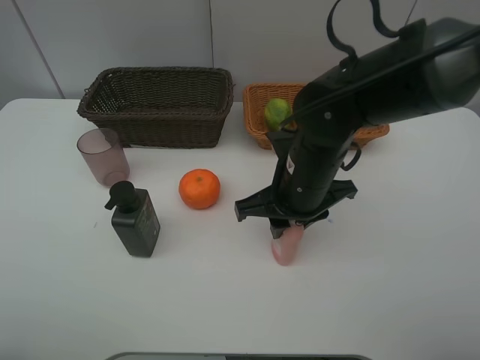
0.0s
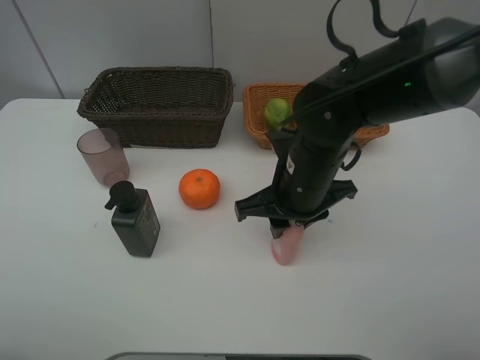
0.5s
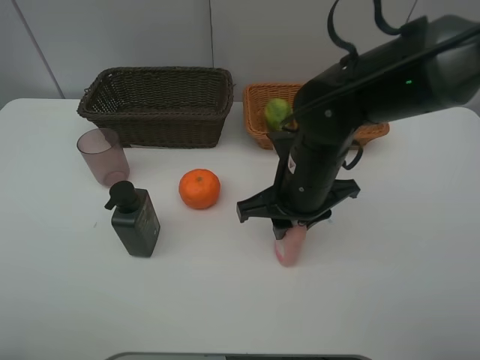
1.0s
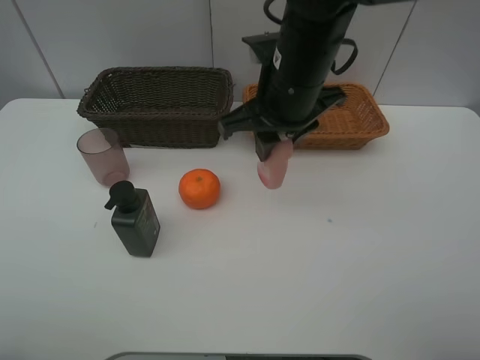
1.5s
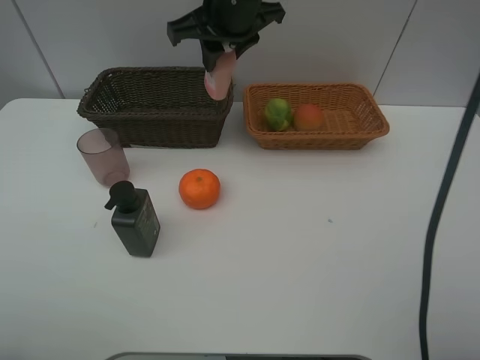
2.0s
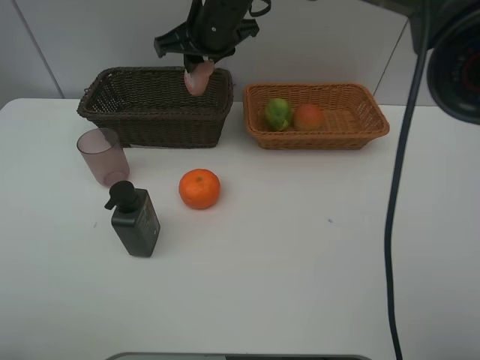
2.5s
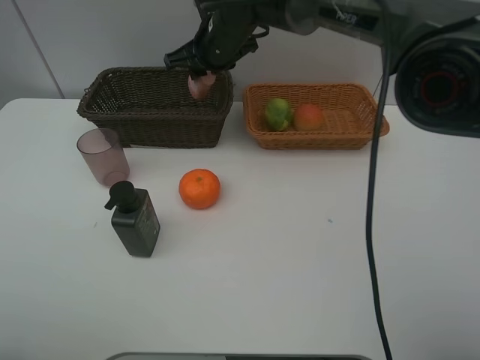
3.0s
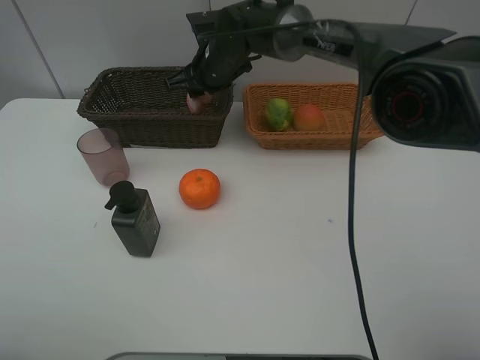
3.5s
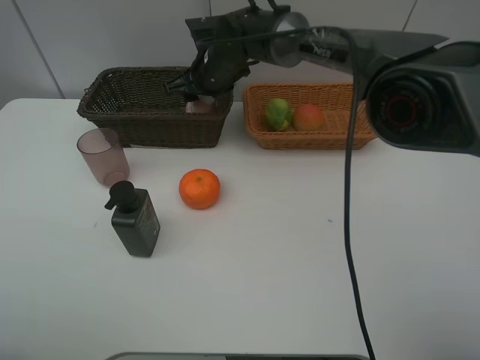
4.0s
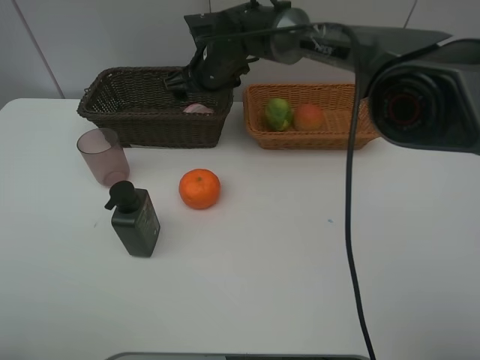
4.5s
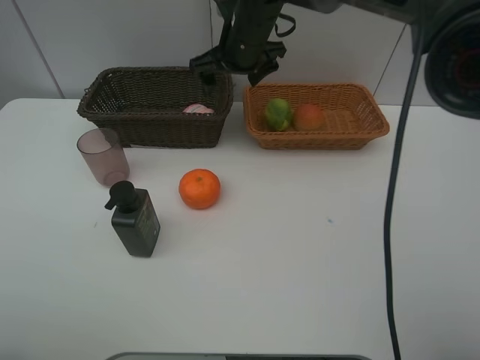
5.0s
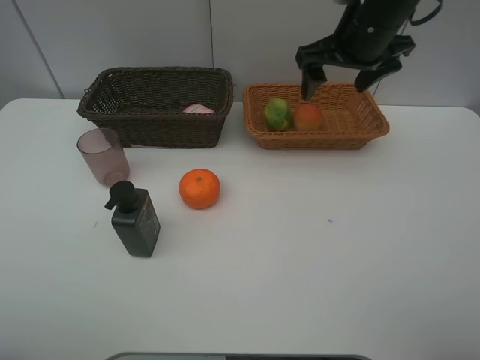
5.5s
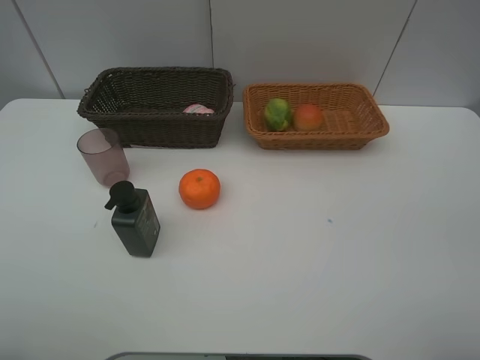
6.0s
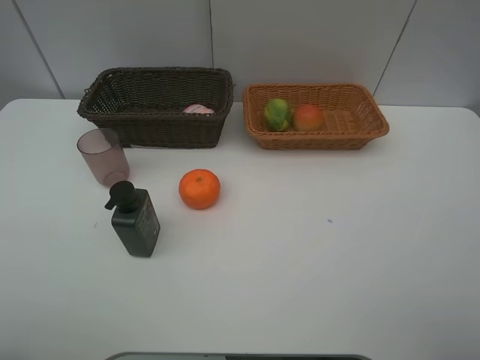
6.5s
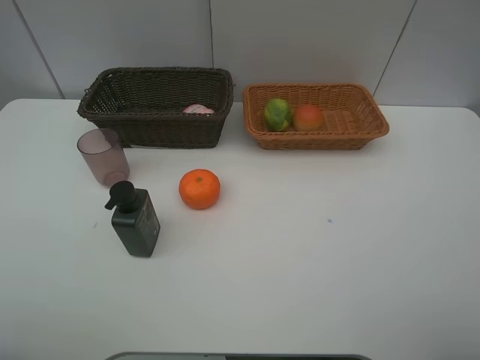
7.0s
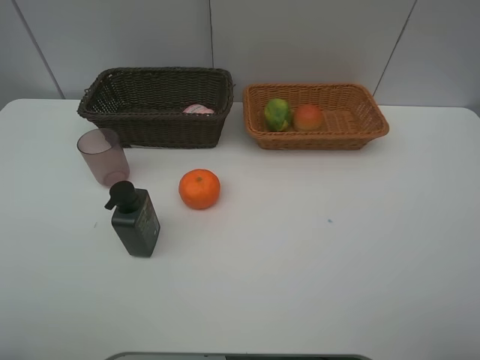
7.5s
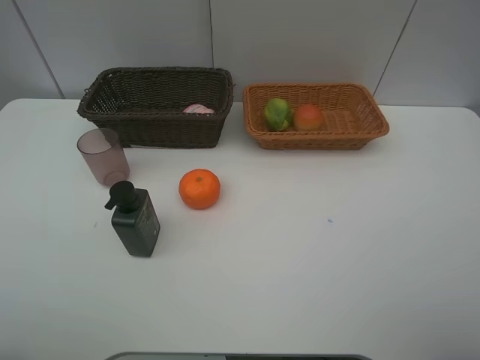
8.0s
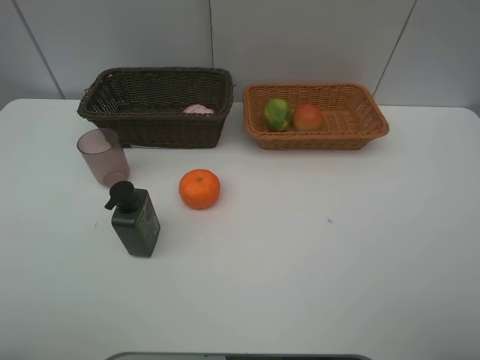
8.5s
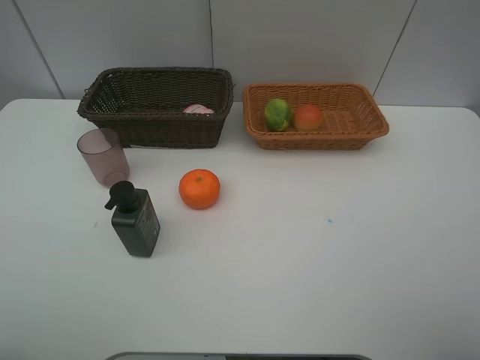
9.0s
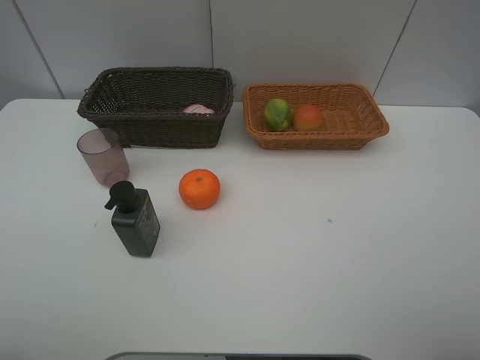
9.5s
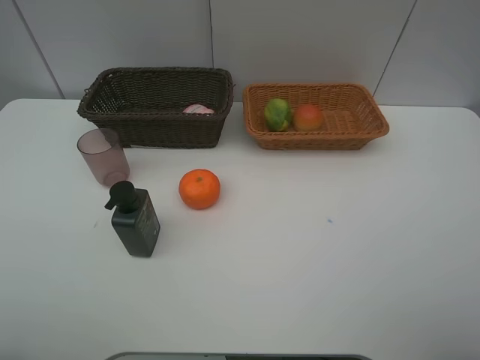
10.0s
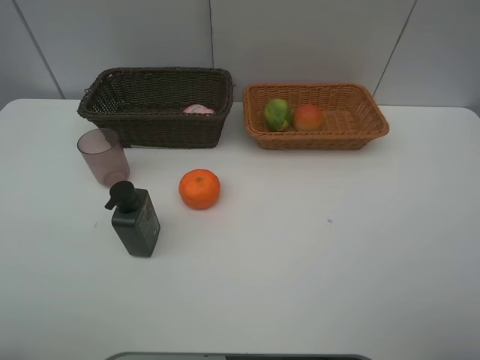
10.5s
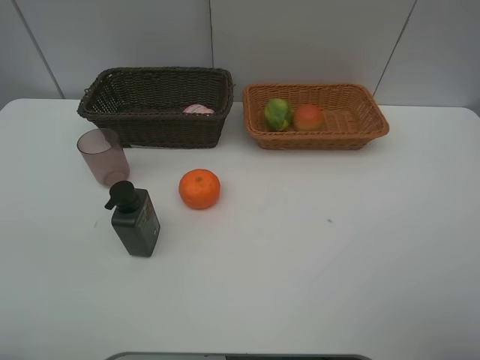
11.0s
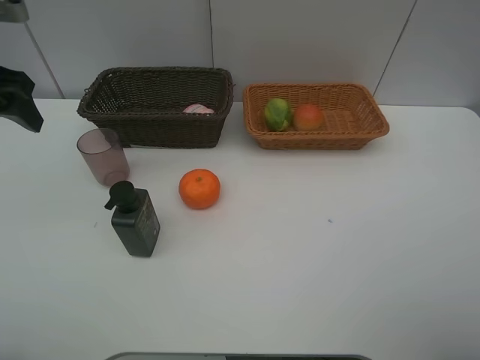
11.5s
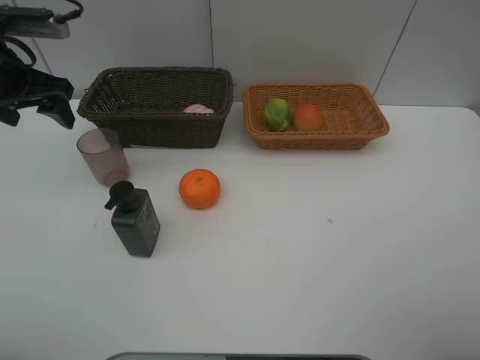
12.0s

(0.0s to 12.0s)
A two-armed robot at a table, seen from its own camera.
Task of the whole recording: place multiple objects separately in different baskets.
0.0s - 2.0s: The right gripper goes some 25 cm forward, upward and to the left.
2.0s - 4.0s: The right gripper heads downward and forward, covering roughly 15 cm, and opens.
4.0s - 6.0s: The right gripper travels to the right, backward and upward by roughly 50 cm, and opens up.
8.0s - 10.0s: Both grippers stay put.
10.0s - 12.0s: The left gripper shifts approximately 30 cm forward.

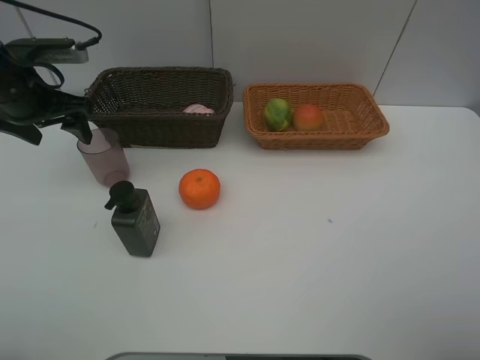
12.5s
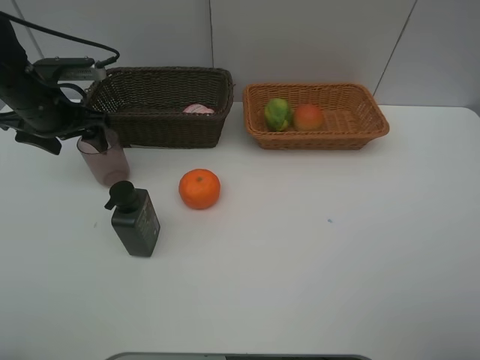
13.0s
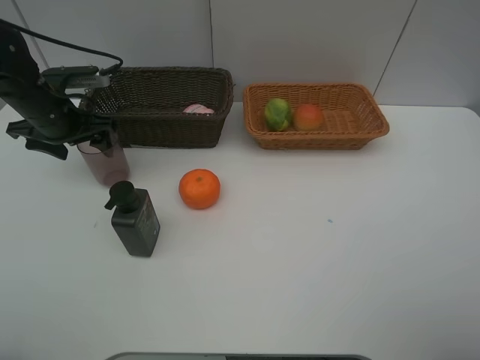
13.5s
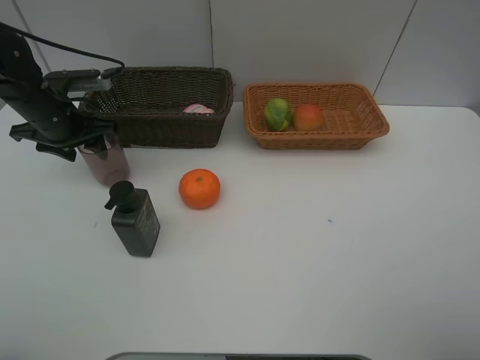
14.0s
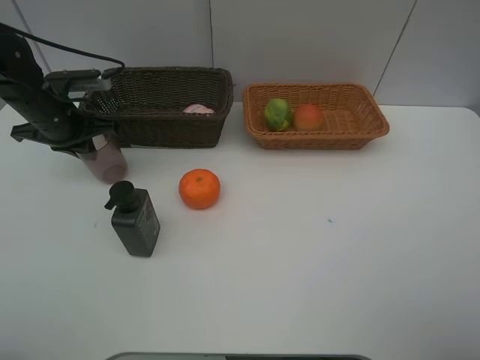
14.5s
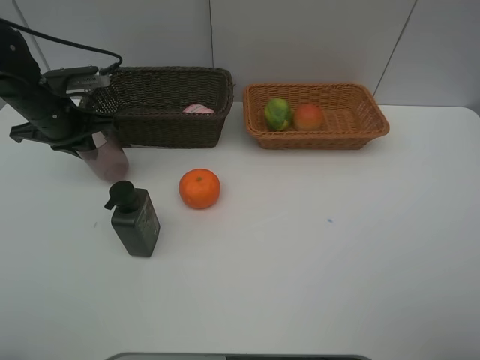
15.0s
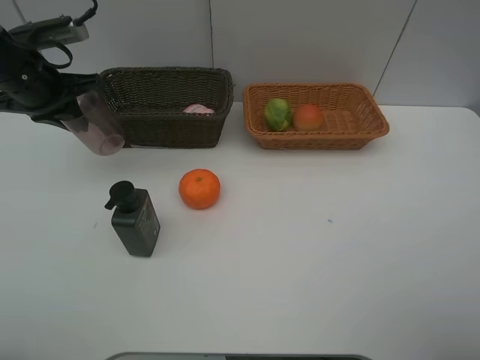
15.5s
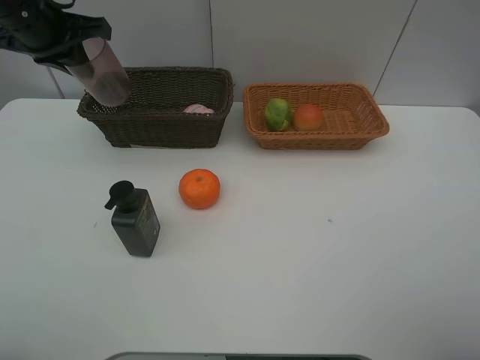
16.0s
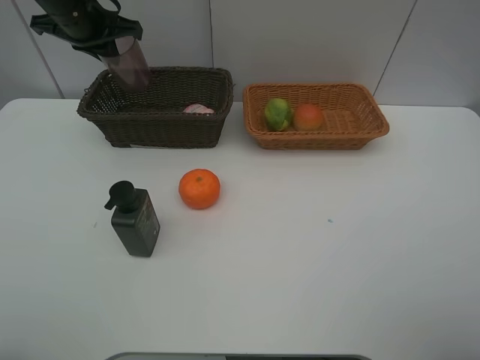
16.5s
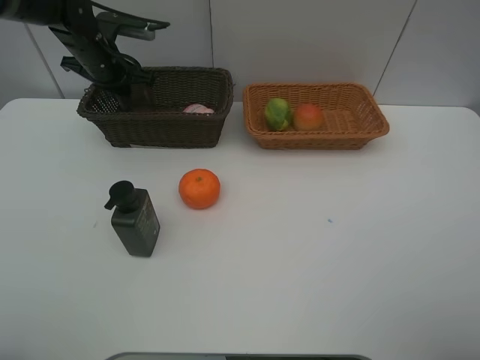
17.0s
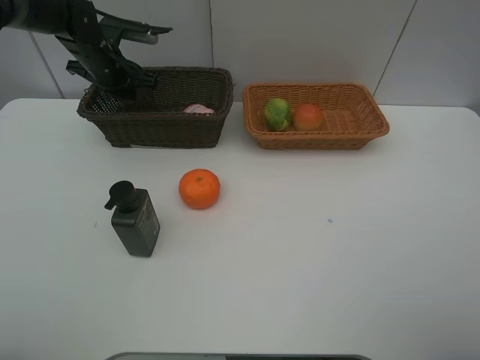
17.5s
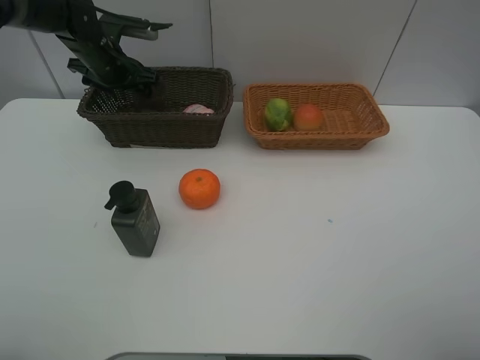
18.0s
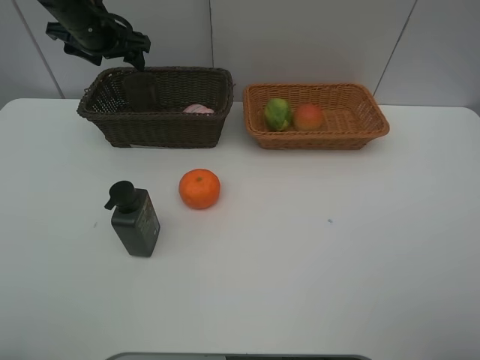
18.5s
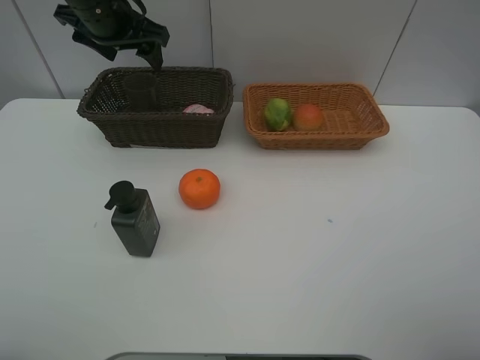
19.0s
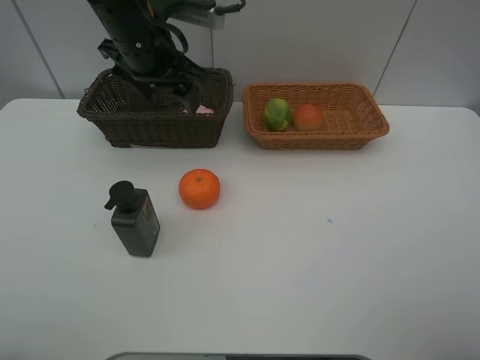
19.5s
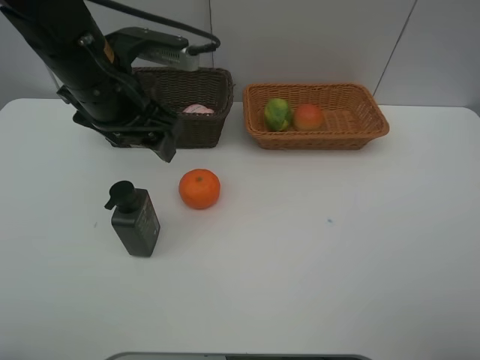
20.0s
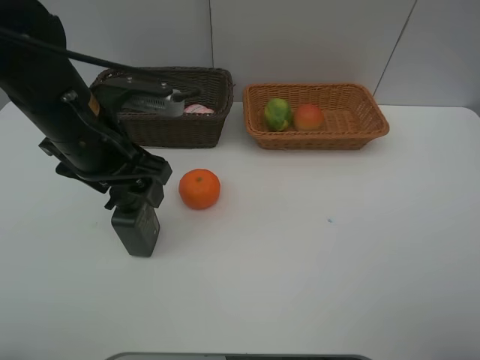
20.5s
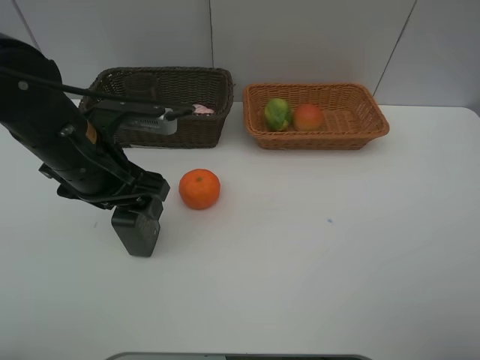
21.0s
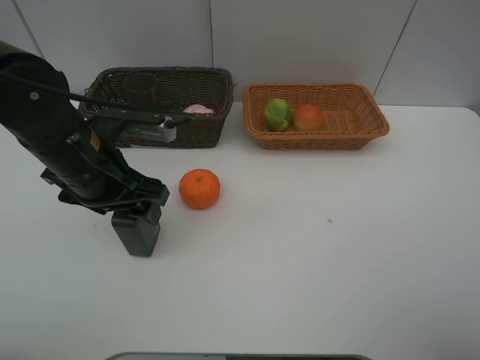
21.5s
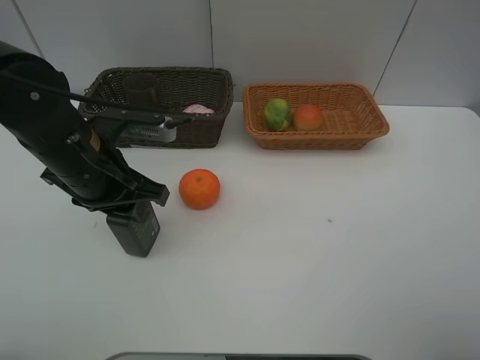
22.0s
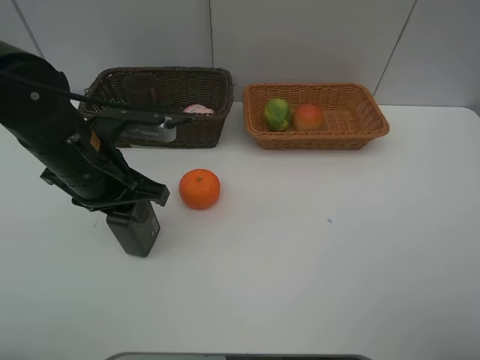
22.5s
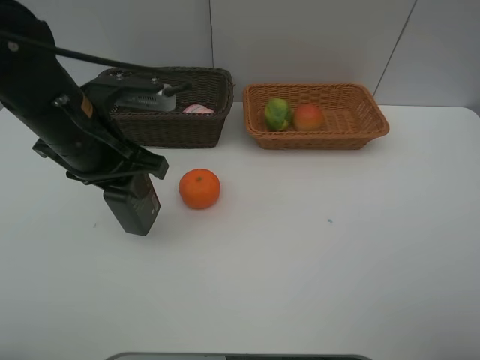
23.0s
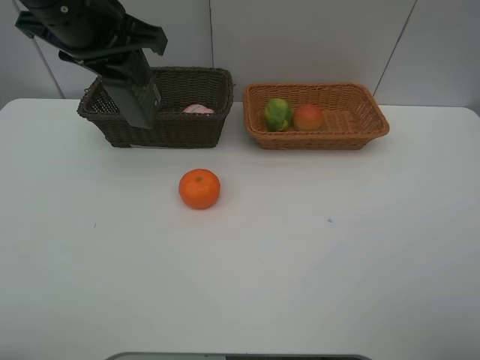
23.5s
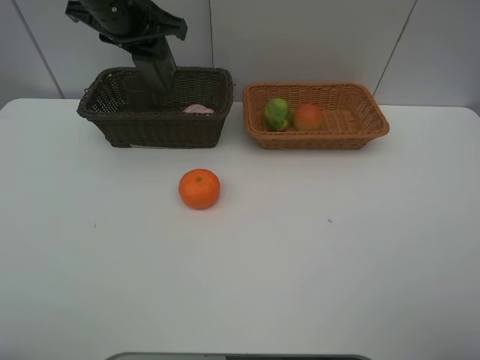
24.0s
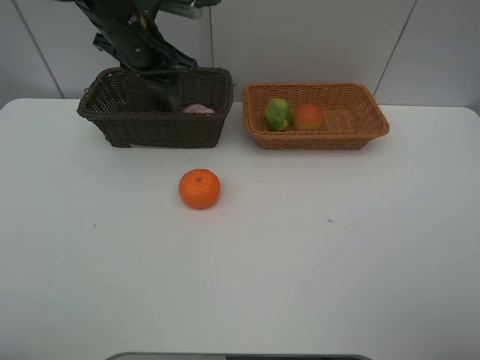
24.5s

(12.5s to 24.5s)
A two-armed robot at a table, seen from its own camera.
Task of the whole recording: place multiple objects separately in different baskets.
12.5s - 14.5s: The left gripper heads downward, covering about 5 cm, and closes.
14.5s - 16.5s: The left gripper goes roughly 15 cm upward and forward.
16.5s - 18.5s: The left gripper goes downward and returns, approximately 10 cm each way, and opens up.
18.5s - 20.5s: The left gripper heads backward, covering some 20 cm.
20.5s - 22.5s: The left gripper closes.
22.5s - 24.5s: The left gripper moves forward, roughly 20 cm.

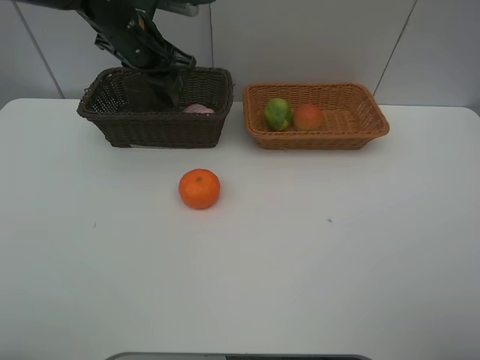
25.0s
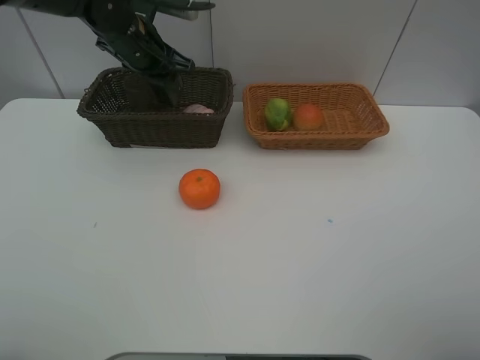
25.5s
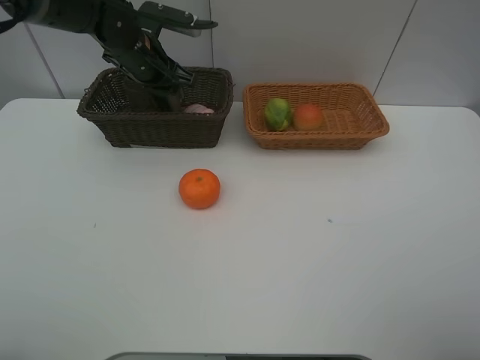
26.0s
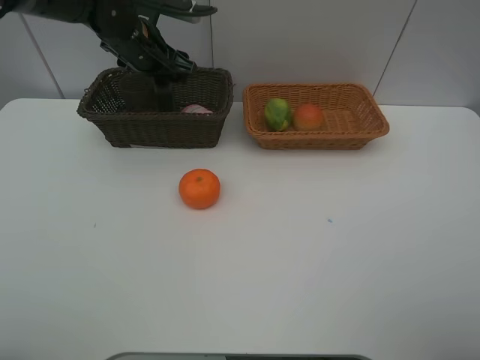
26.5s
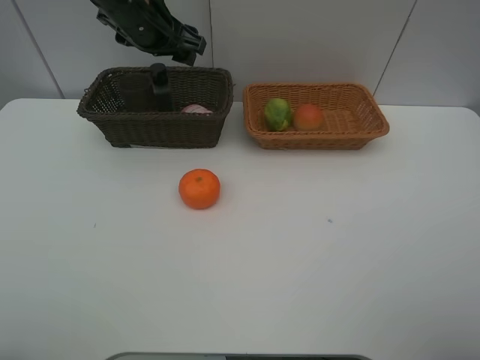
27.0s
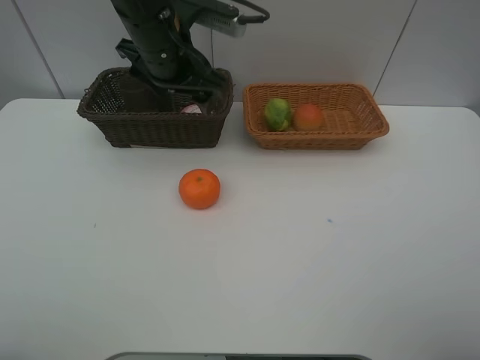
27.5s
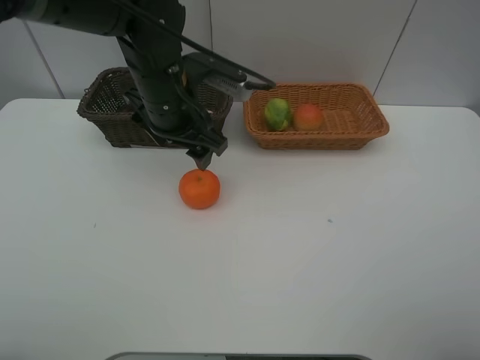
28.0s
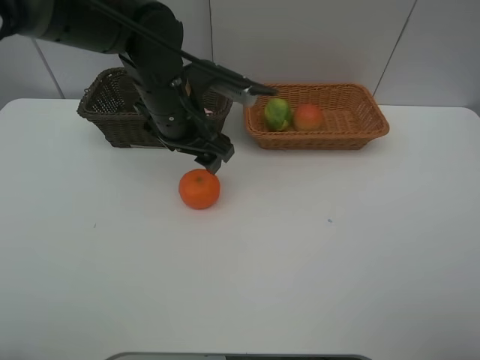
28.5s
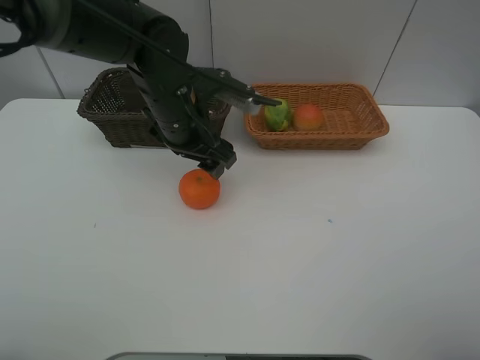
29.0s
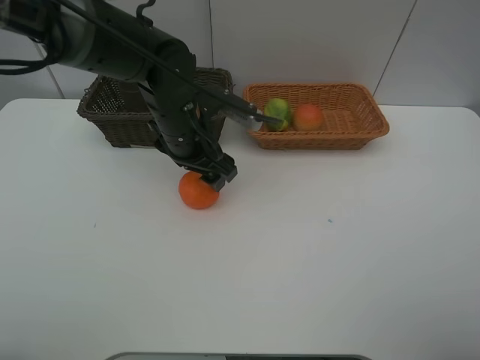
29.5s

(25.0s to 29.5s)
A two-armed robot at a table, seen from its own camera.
Task of the whole recording: place multiple objects separately in different baskets.
25.0s - 27.0s: The left gripper moves some 5 cm, and opens its fingers.
27.0s - 29.5s: The left gripper moves downward, backward and to the right, roughly 15 cm.
